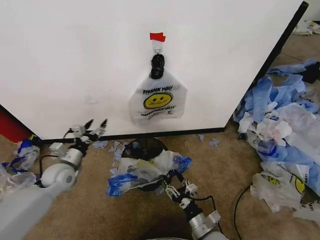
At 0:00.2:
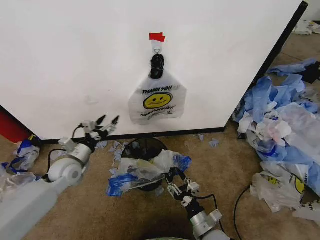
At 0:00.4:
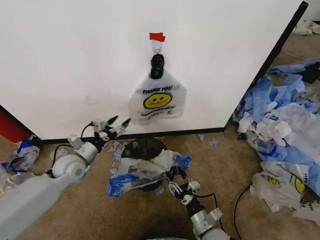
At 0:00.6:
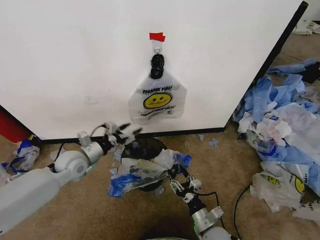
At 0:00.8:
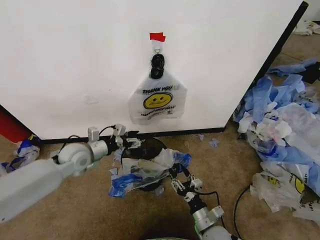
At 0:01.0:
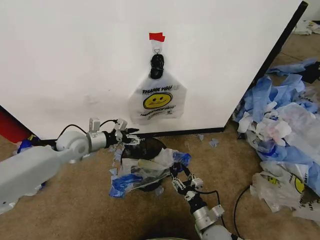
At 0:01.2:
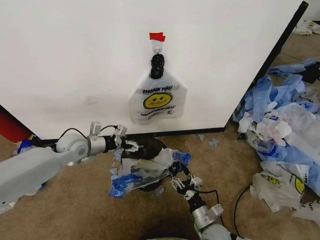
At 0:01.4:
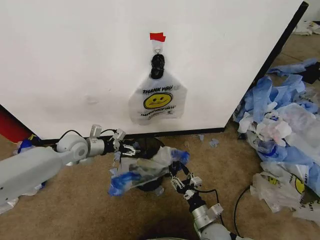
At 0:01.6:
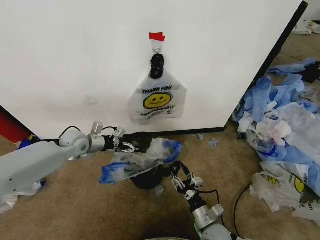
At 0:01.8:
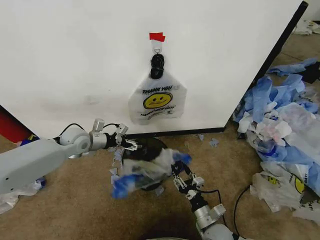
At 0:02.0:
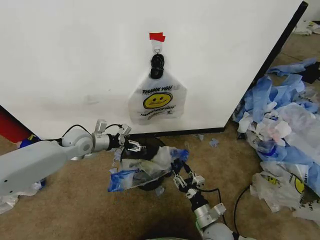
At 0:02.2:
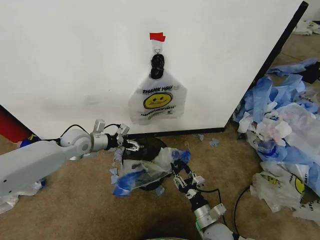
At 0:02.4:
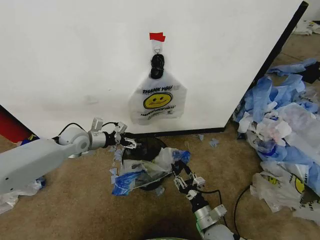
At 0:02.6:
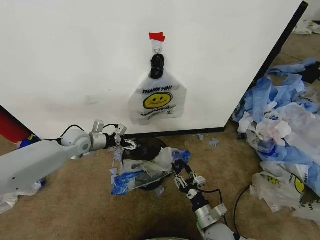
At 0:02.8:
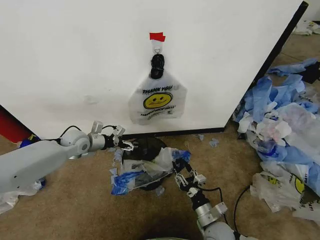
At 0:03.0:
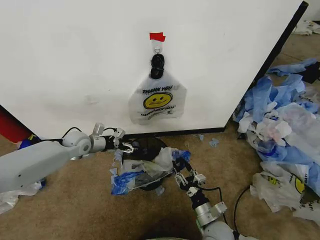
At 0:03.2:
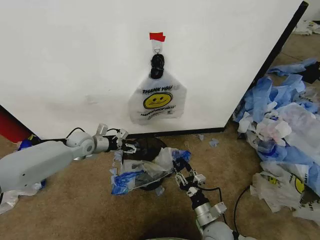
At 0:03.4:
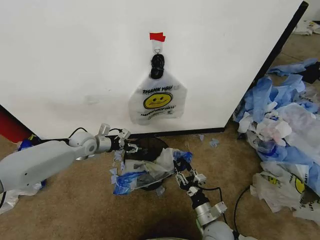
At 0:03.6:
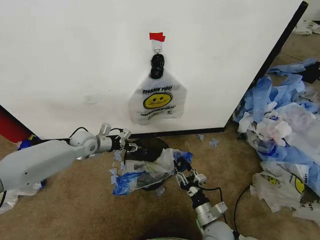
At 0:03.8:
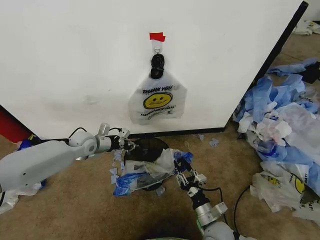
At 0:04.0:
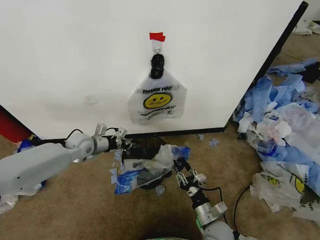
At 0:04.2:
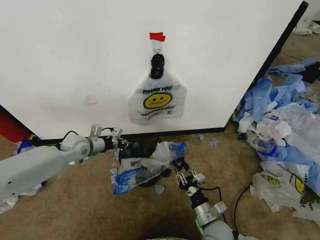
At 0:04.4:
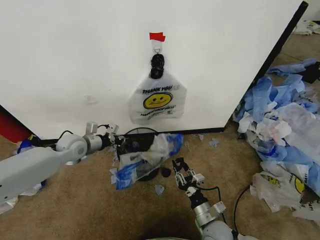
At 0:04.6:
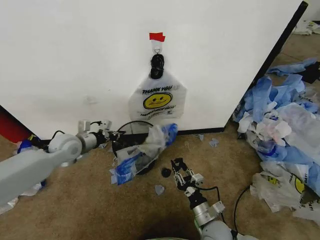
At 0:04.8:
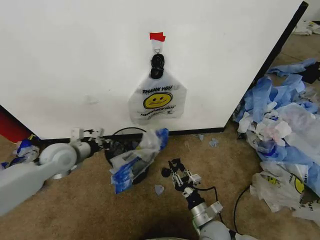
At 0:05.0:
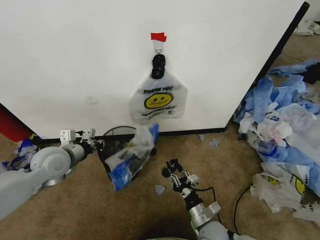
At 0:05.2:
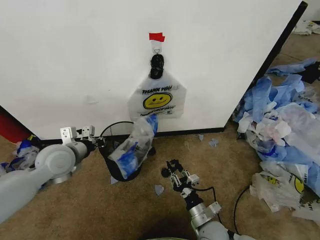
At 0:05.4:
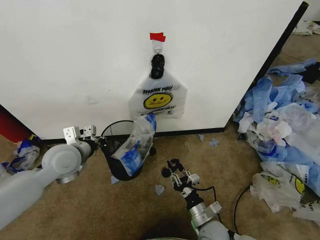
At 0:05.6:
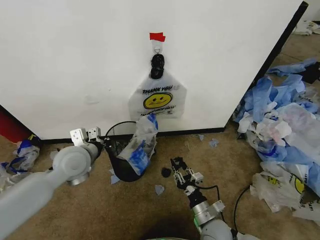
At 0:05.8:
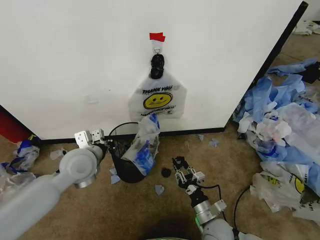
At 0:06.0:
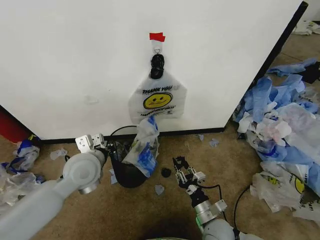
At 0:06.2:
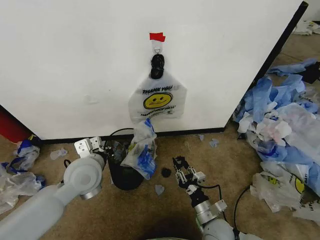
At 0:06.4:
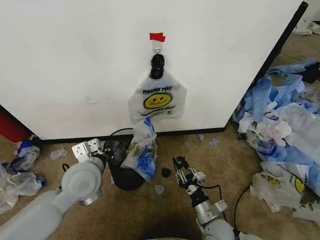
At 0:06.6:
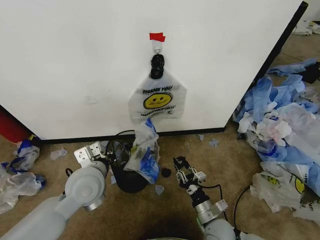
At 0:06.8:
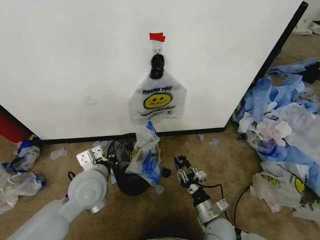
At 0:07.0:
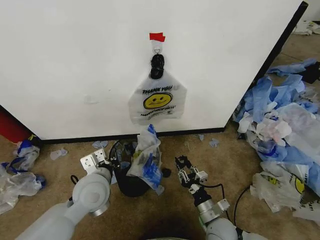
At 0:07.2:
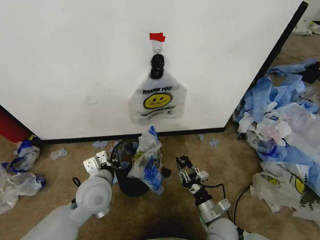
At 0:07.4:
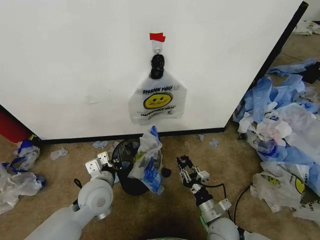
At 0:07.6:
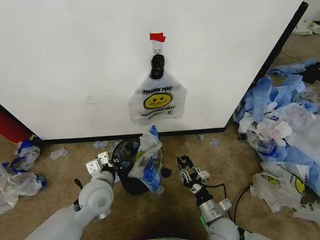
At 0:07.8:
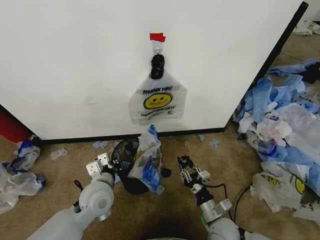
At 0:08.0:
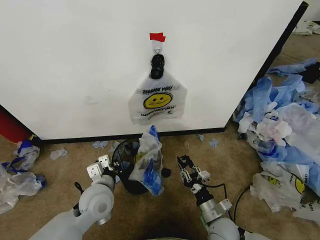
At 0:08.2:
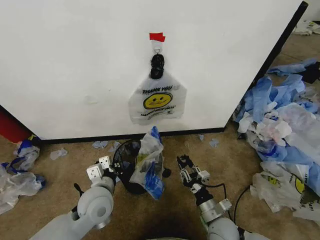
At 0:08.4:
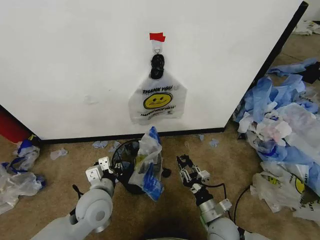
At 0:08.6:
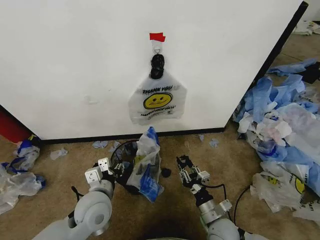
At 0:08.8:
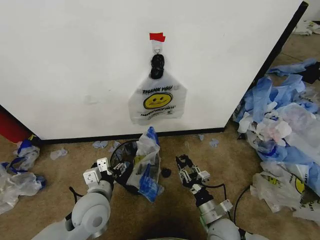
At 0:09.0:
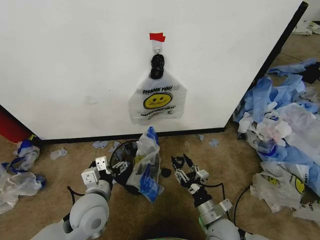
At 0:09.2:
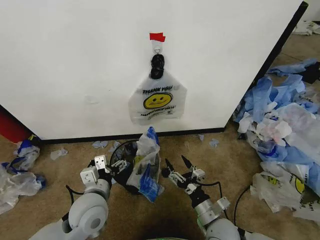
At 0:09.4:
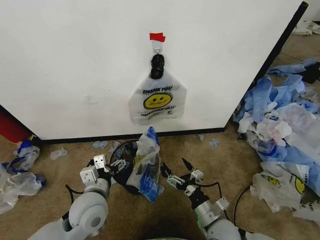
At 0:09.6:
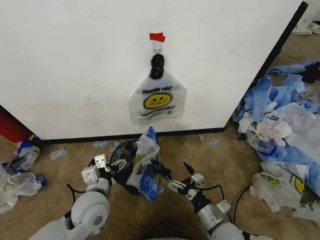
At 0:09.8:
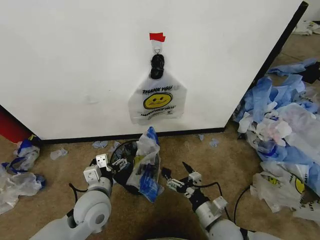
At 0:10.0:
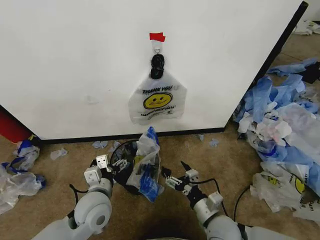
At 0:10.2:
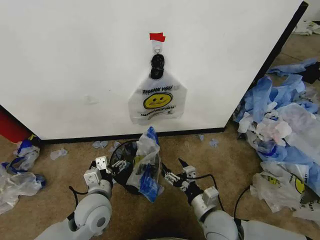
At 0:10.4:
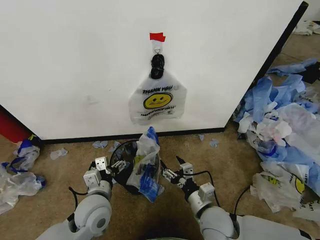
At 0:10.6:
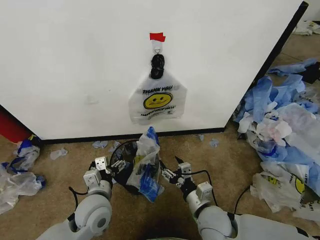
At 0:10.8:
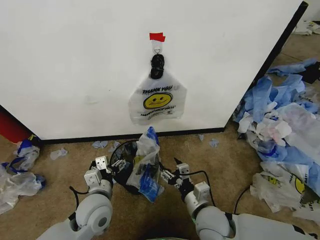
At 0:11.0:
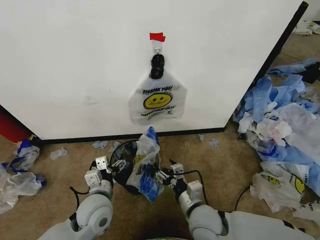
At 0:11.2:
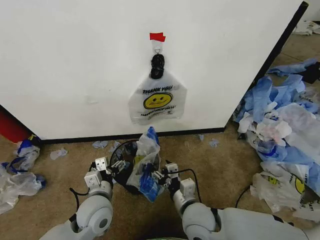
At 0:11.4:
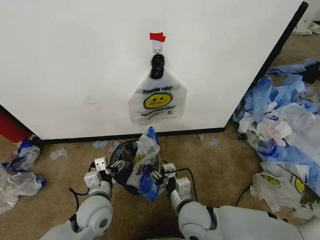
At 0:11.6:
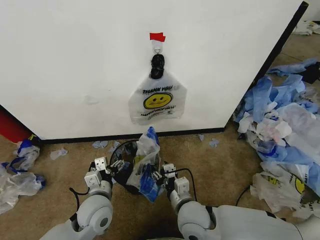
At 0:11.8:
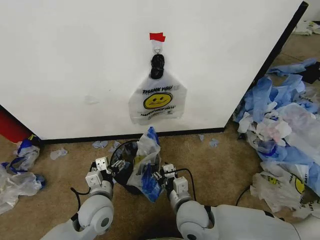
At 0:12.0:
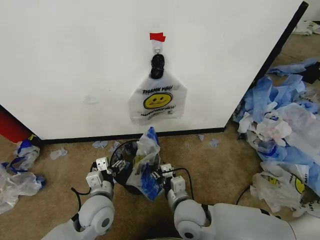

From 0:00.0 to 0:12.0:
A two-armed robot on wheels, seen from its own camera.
Task of the whole recording: Pick up the garbage bag from the wall and place it over the trash bin.
From 0:00.0 to 0:01.6: The left gripper travels forward and upward by approximately 10 cm.
From 0:01.6 to 0:03.0: There are only small adjustments of the grippers.
From 0:03.0 to 0:04.4: The left gripper closes.
From 0:04.4 to 0:06.0: The left gripper goes some 15 cm backward, to the right and upward.
From 0:06.0 to 0:07.6: The left gripper moves downward, roughly 10 cm.
From 0:07.6 to 0:09.0: The left gripper shifts by some 5 cm, and opens its fingers.
From 0:09.0 to 0:10.4: The right gripper is displaced upward by roughly 5 cm.
From 0:10.4 to 0:12.0: The right gripper is displaced to the left by about 5 cm.

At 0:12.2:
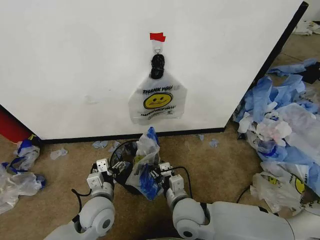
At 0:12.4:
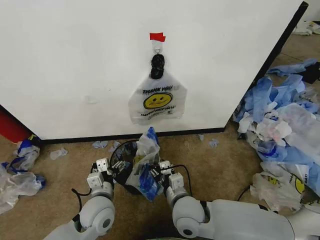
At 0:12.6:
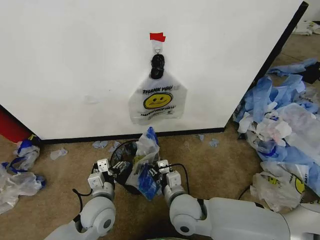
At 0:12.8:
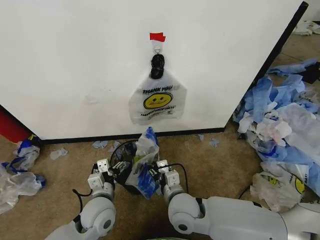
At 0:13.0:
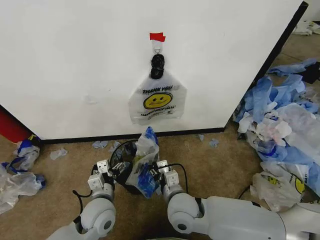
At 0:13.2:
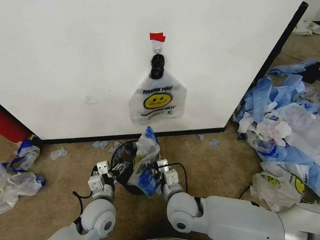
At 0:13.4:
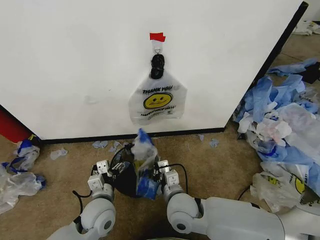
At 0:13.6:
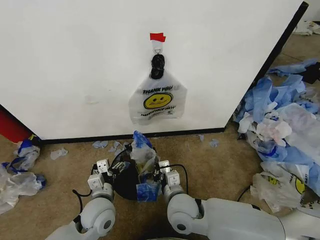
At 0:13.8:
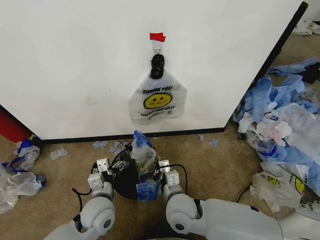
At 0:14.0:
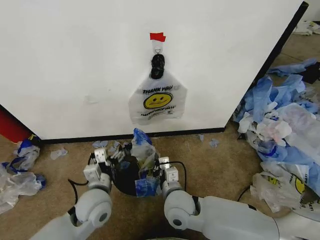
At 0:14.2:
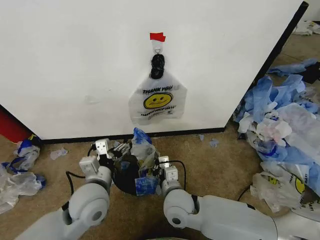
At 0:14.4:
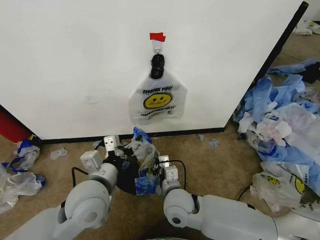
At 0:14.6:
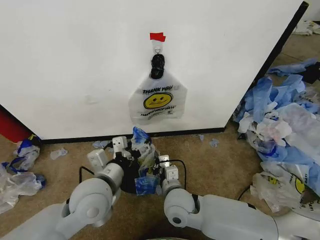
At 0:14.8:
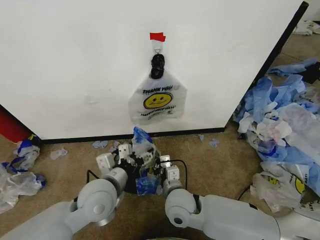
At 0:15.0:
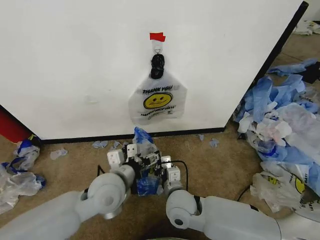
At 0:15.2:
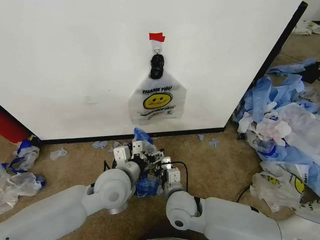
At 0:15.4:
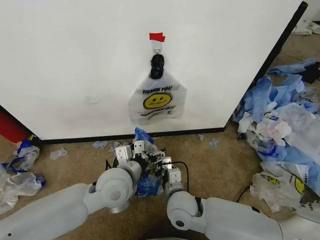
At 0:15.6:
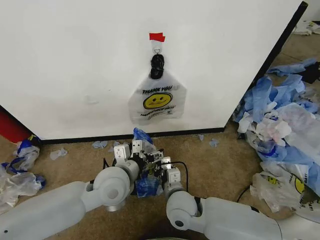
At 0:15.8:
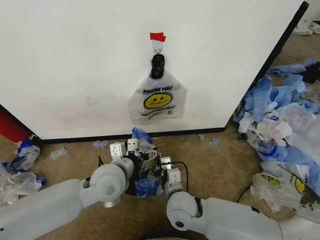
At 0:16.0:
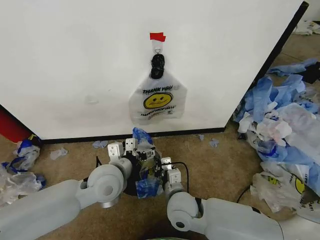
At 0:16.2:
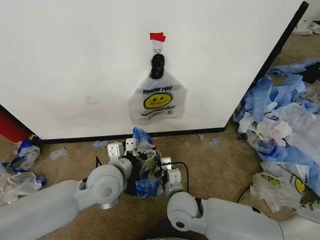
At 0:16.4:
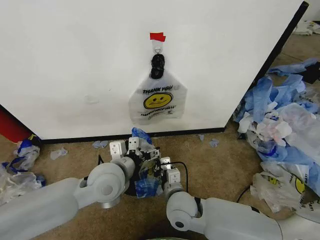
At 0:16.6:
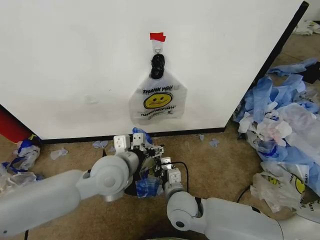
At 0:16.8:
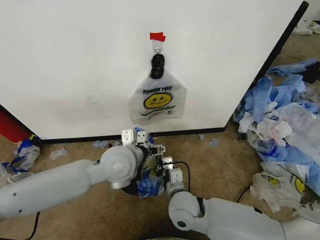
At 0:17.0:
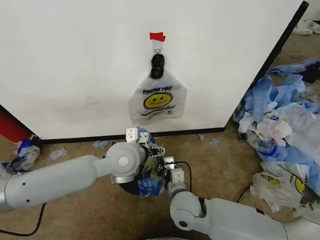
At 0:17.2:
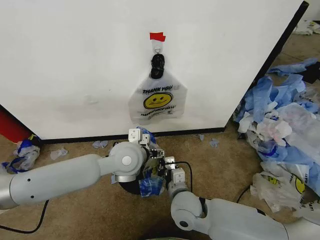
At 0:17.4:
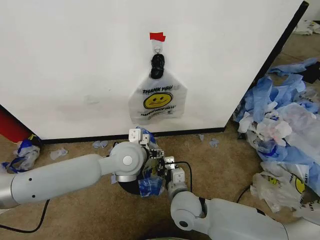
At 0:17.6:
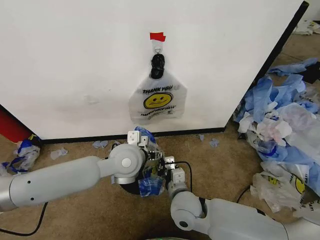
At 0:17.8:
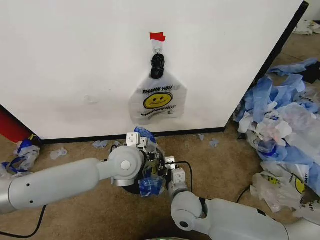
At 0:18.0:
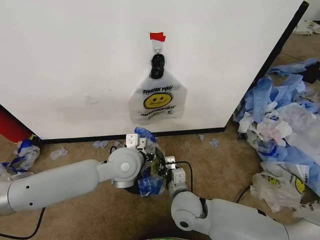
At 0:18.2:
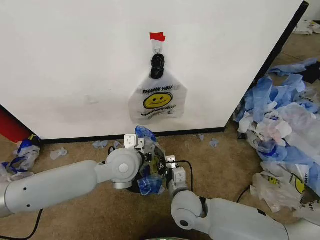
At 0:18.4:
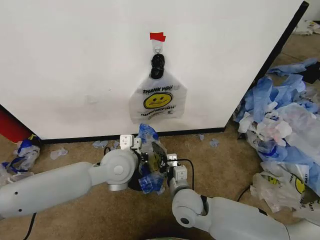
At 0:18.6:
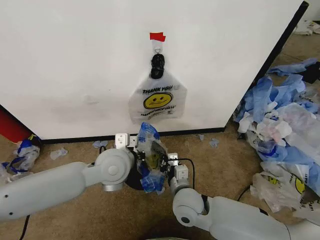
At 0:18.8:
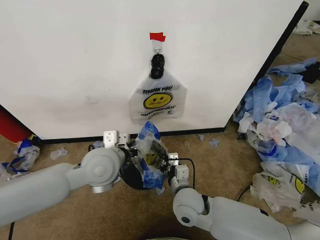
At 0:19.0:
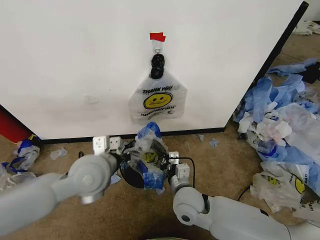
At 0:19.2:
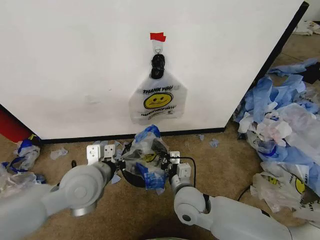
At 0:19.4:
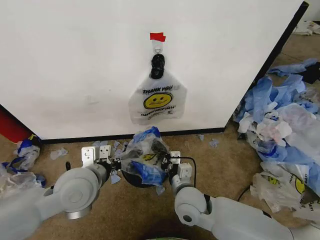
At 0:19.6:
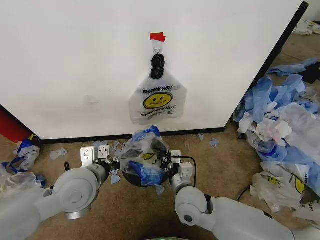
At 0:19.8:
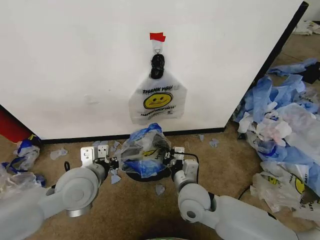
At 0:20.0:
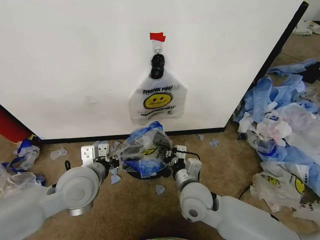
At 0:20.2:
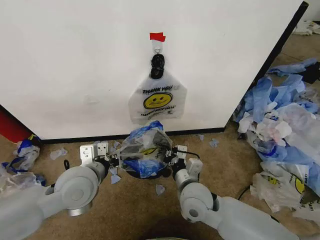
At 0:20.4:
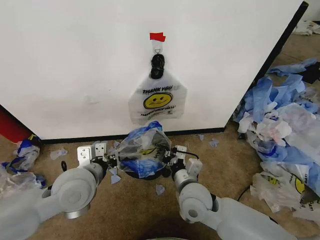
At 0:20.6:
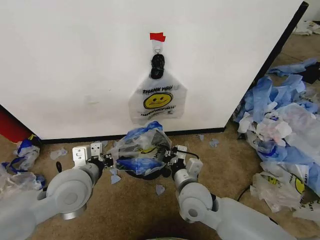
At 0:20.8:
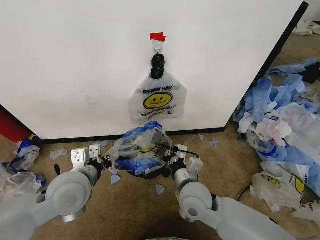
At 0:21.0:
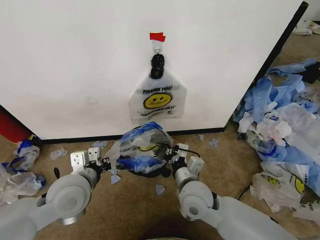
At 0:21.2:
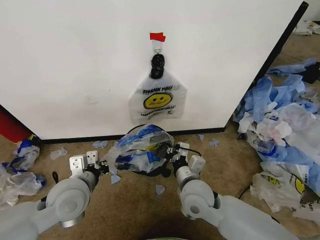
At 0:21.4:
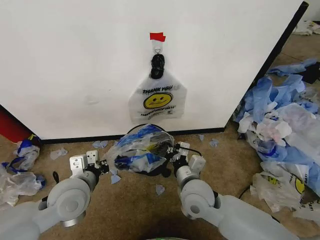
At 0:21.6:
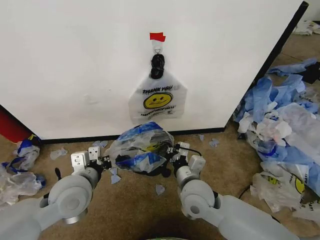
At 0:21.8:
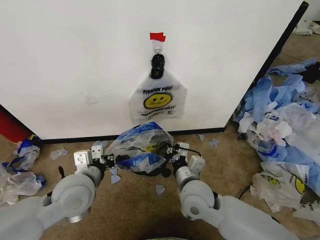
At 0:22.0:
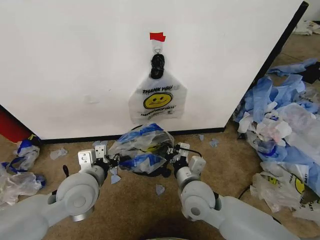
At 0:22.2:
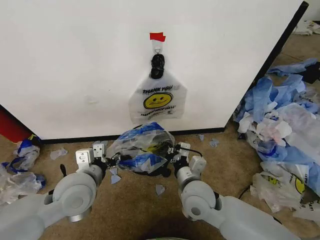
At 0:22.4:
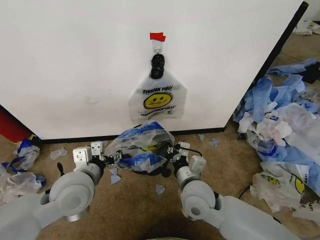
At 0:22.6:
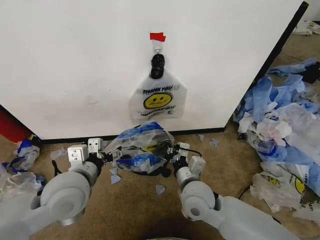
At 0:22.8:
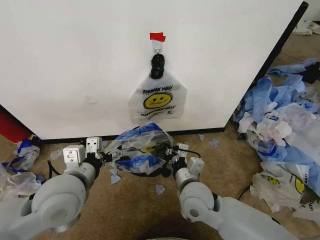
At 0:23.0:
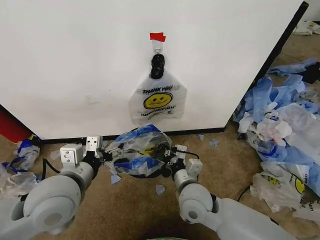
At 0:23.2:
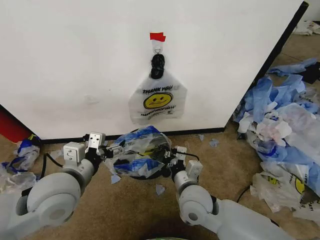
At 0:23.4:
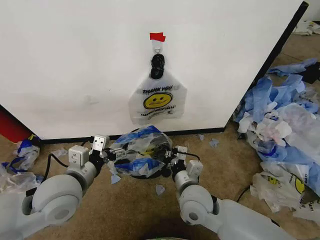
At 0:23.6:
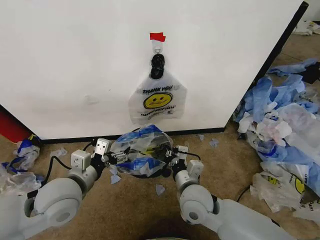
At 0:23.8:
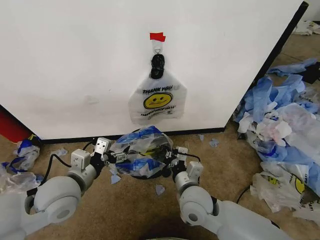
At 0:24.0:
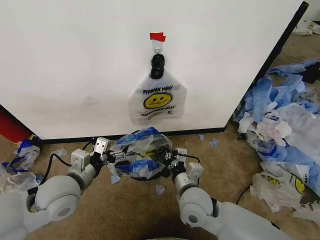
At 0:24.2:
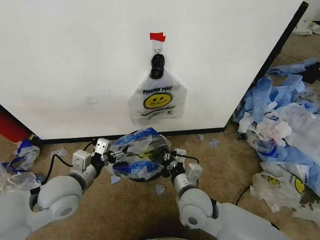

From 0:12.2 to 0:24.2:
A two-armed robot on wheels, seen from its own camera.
Task of the whole recording: Pick up the garbage bag from the wall and place it over the trash bin.
From 0:12.2 to 0:13.8: The right gripper closes up.
From 0:13.8 to 0:15.2: The left gripper heads upward and to the right, covering roughly 15 cm.
From 0:15.2 to 0:16.6: The grippers stay close to where they were, moving slightly.
From 0:16.6 to 0:18.2: The left gripper closes.
From 0:18.2 to 0:19.8: The left gripper goes about 10 cm to the left and backward.
From 0:19.8 to 0:21.2: The grippers make only small movements.
From 0:21.2 to 0:22.6: The left gripper opens up.
From 0:22.6 to 0:24.2: The left gripper ends up roughly 5 cm from where it was.
